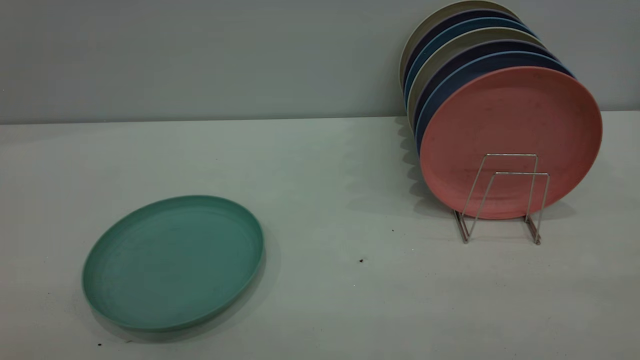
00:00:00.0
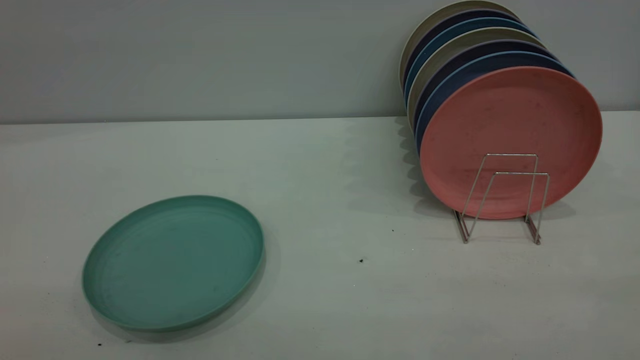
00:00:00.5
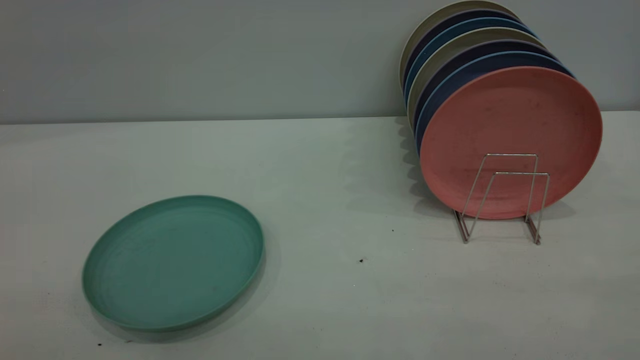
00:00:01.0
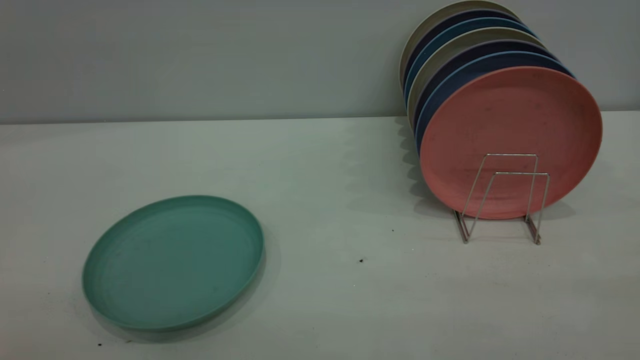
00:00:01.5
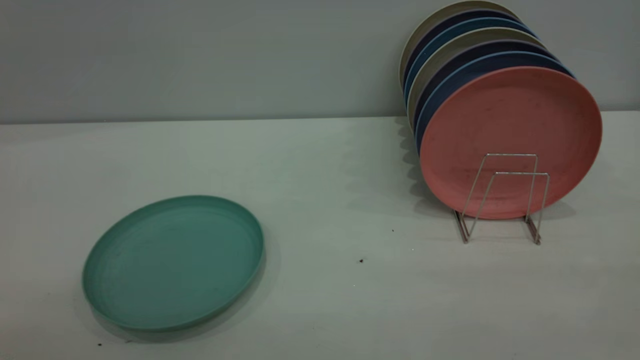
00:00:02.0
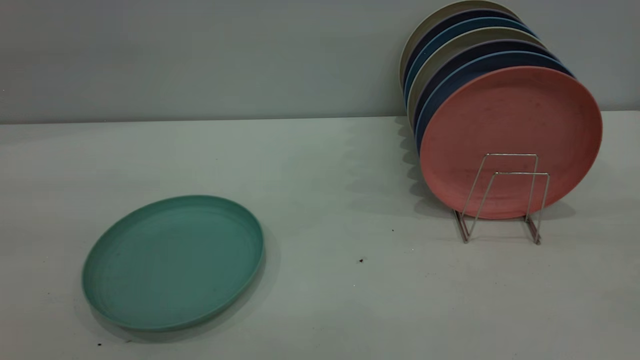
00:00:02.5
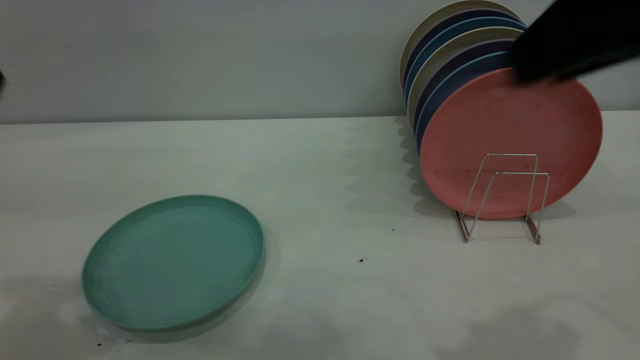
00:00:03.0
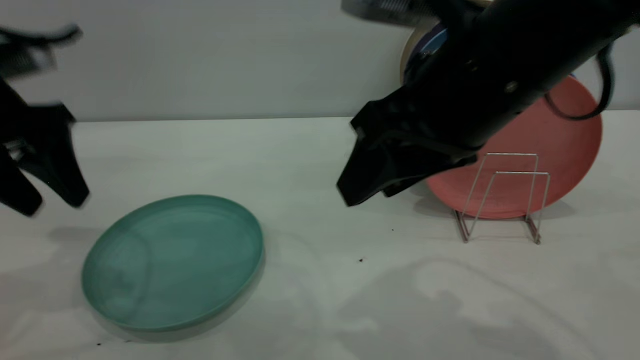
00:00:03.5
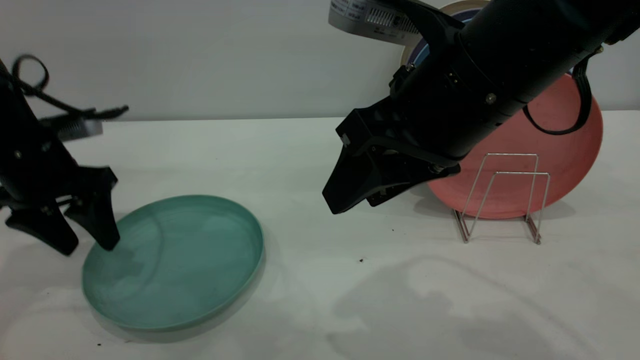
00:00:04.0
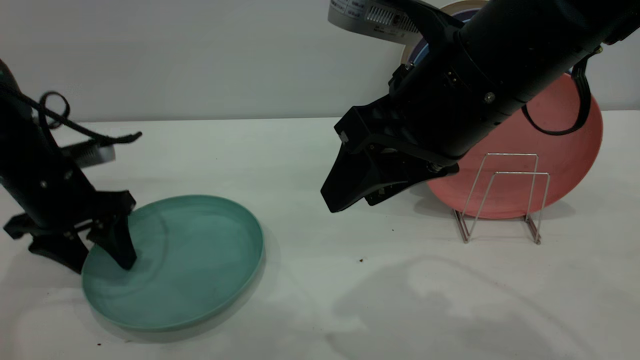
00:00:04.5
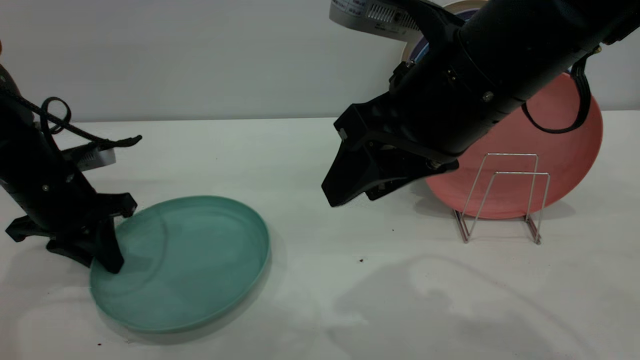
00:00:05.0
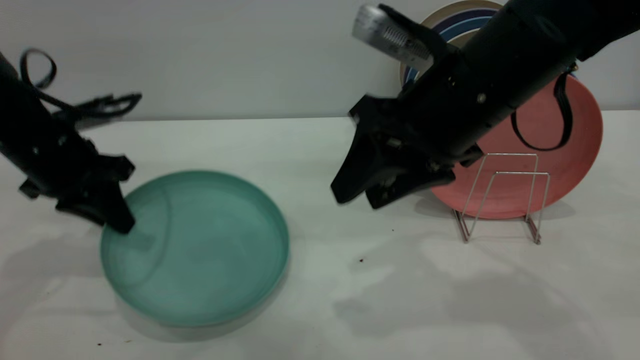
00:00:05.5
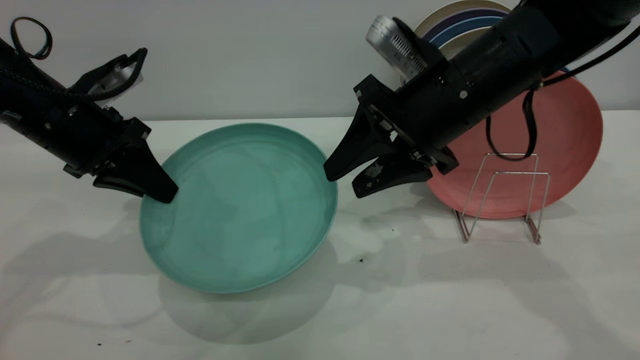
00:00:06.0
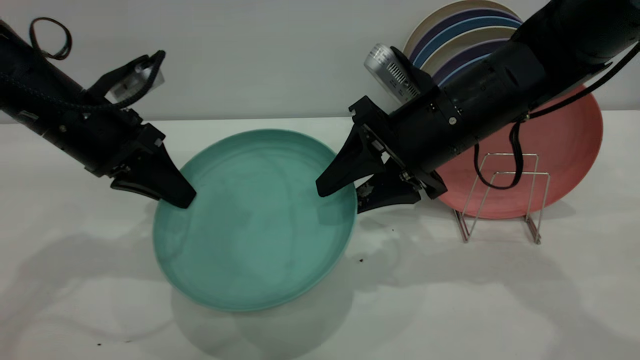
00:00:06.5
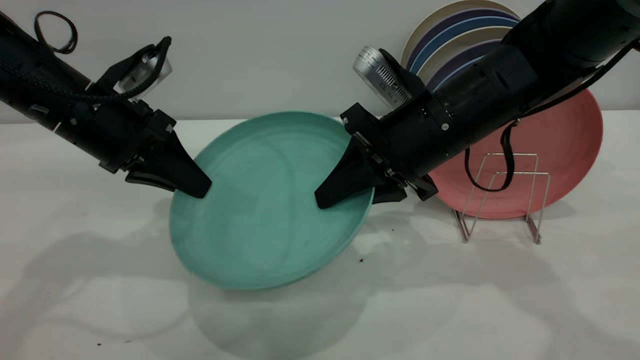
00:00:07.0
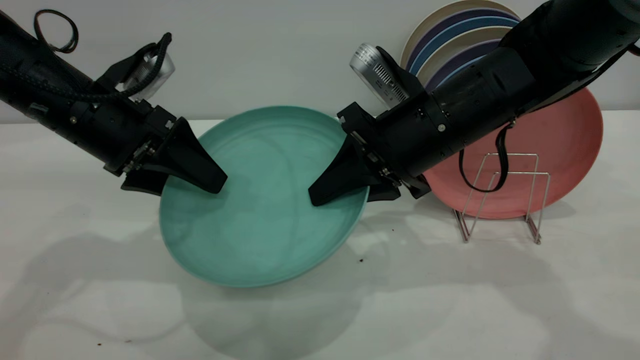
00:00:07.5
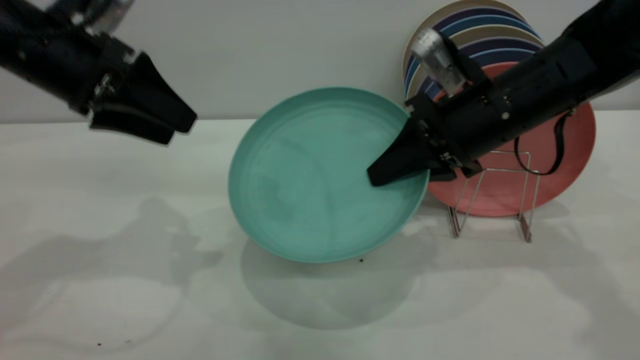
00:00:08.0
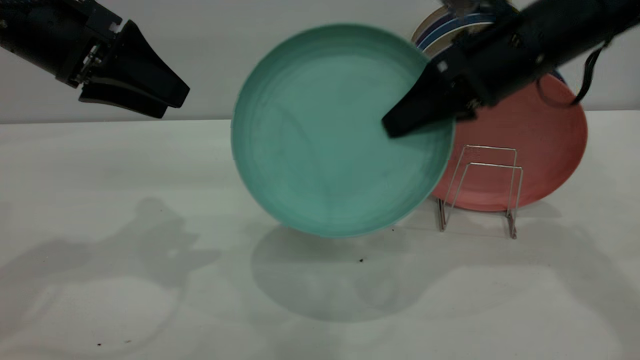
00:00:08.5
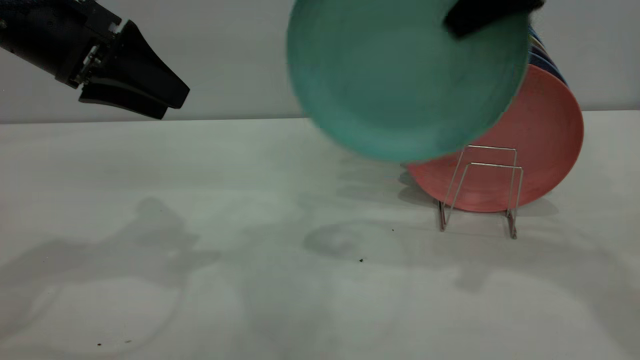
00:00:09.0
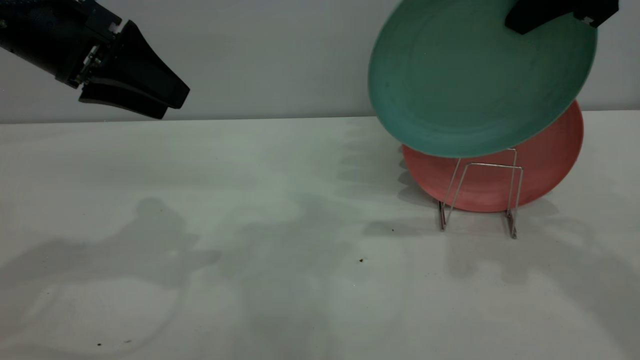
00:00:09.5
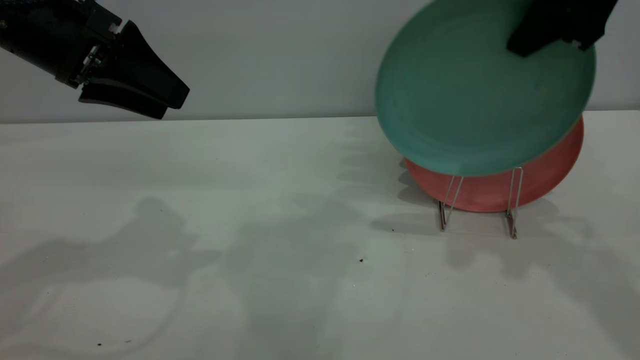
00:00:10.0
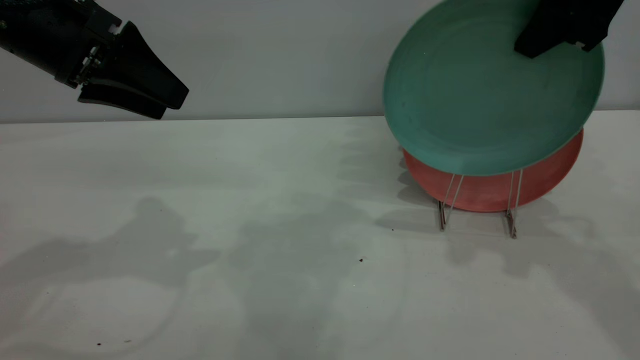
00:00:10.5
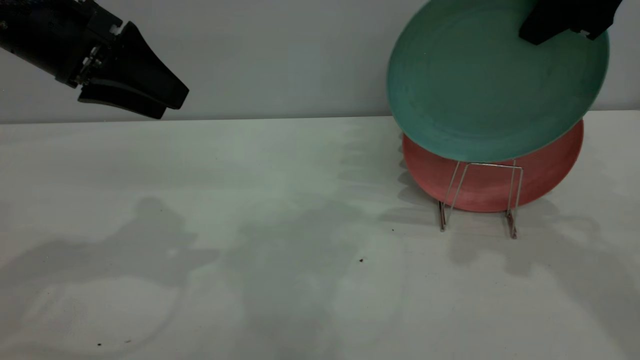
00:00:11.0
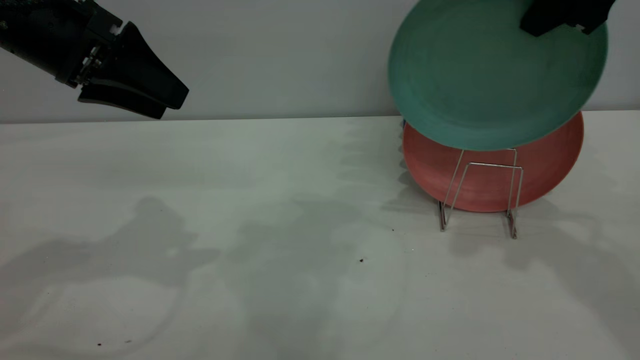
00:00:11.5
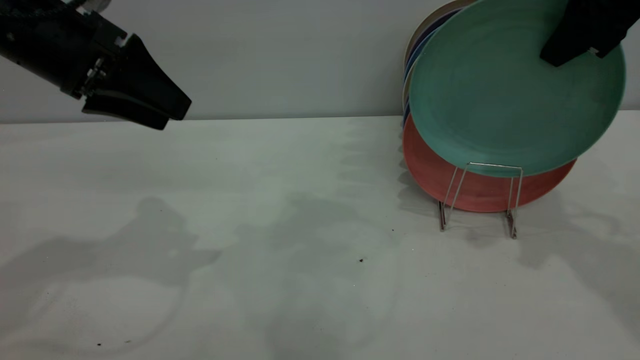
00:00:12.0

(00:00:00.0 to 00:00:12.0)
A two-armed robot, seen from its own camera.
Task of the whole recording: the left gripper grasp the green plate, the left gripper pass the green plate to the right gripper, and the right gripper place the green plate on the plate rack.
Step, 00:00:00.0 - 00:00:05.5: Pick up the plate with the left gripper.
Step, 00:00:06.0 - 00:00:08.0: Pass the plate from the left gripper to the right gripper.
00:00:02.0 - 00:00:04.0: The right gripper travels forward and to the left by roughly 35 cm, while the left gripper goes roughly 40 cm forward and downward.
00:00:04.0 - 00:00:06.0: The right gripper shifts approximately 10 cm forward and downward. The left gripper closes up.
00:00:06.0 - 00:00:08.0: The right gripper ends up some 5 cm from where it was, and closes up; the left gripper travels upward by some 5 cm, and opens.
00:00:08.0 - 00:00:10.0: The right gripper travels upward by about 15 cm.
00:00:10.0 - 00:00:12.0: The grippers move only a little.

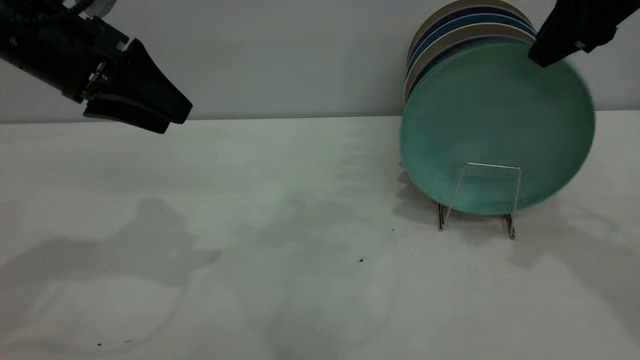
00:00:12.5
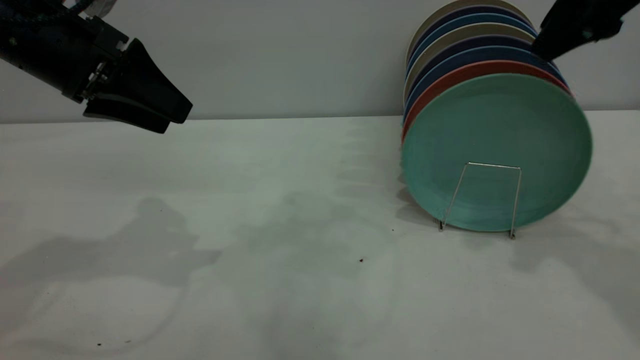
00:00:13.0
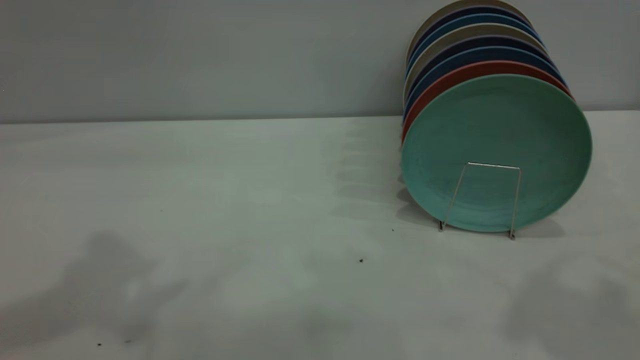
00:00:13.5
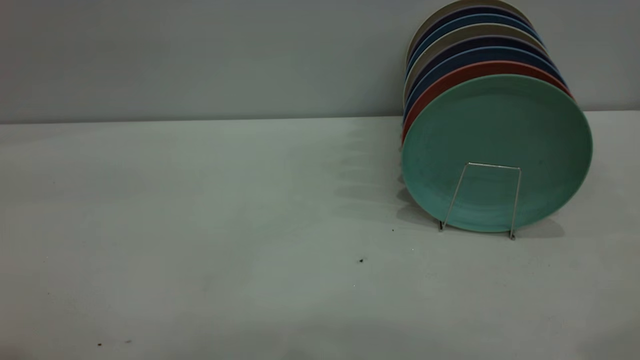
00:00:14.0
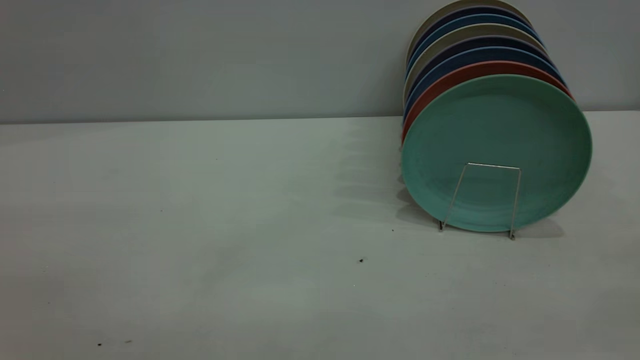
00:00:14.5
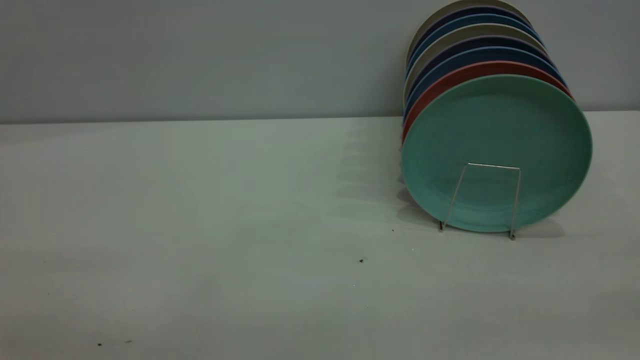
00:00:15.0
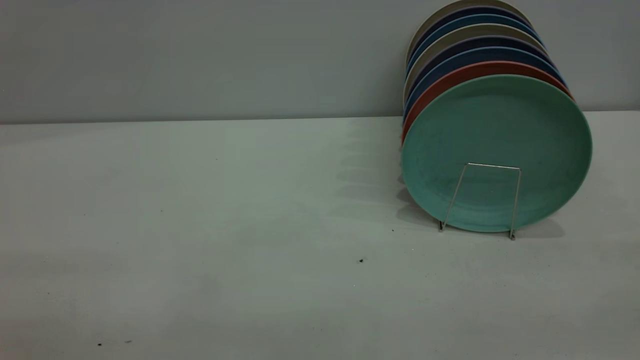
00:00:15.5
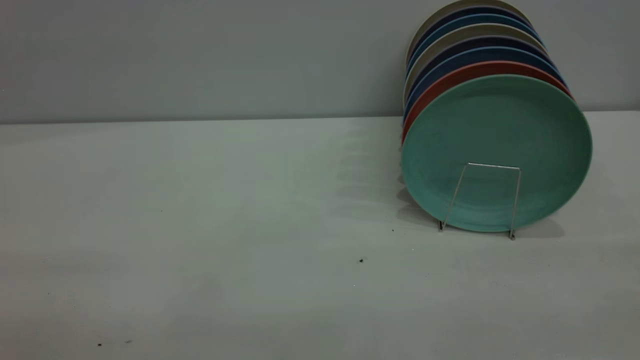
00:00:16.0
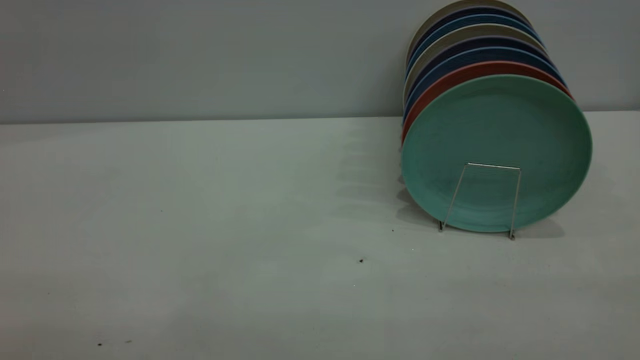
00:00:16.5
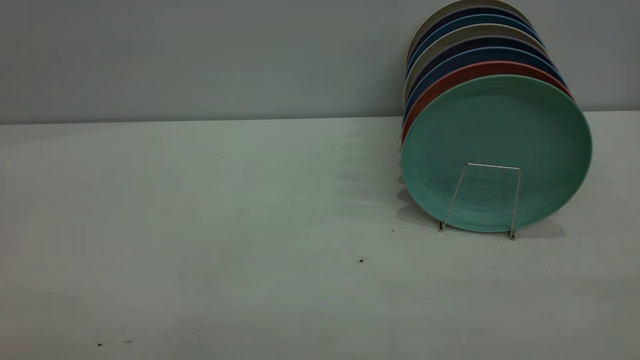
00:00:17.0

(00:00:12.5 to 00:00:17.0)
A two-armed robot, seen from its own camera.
Task of the whole recording: the left gripper grasp the green plate, the left gripper pass the green plate to the right gripper, and the right gripper place the green plate on the plate rack.
00:00:12.5 - 00:00:14.5: The left gripper shifts about 30 cm backward and upward. The right gripper heads backward, covering about 30 cm.
